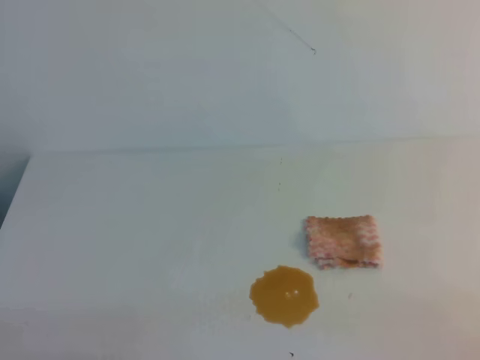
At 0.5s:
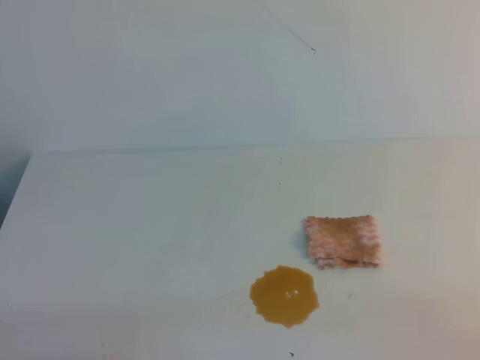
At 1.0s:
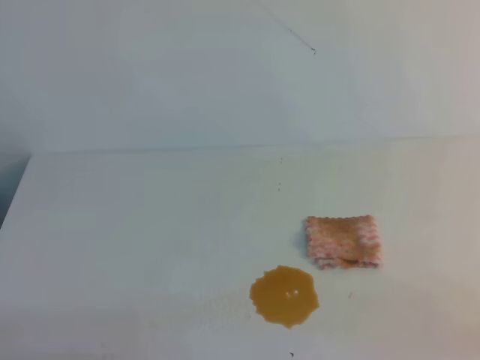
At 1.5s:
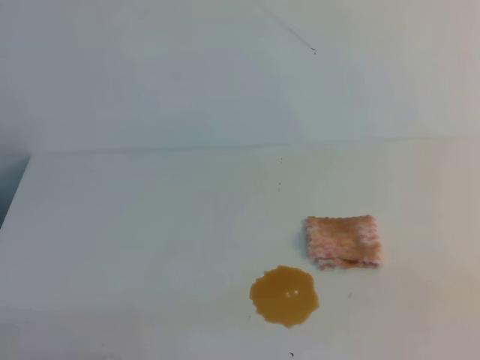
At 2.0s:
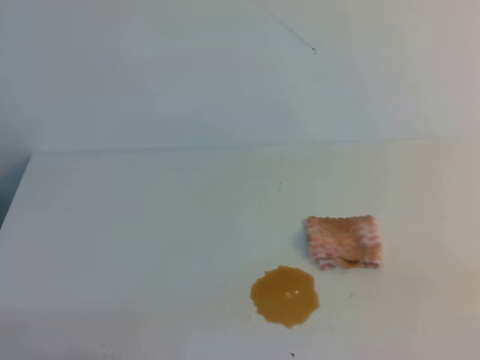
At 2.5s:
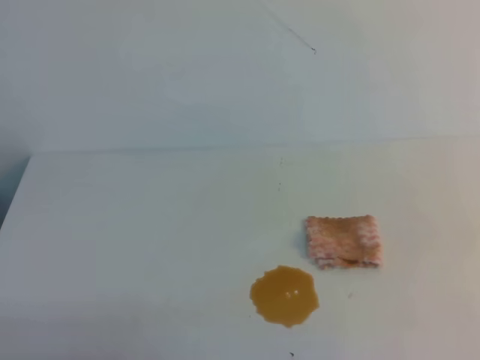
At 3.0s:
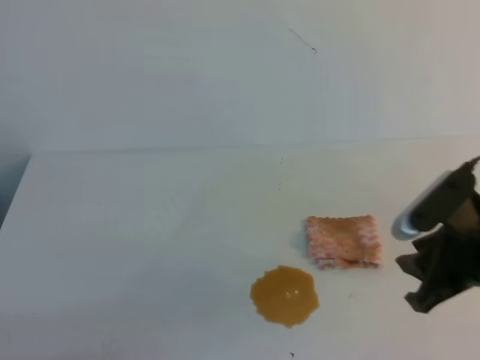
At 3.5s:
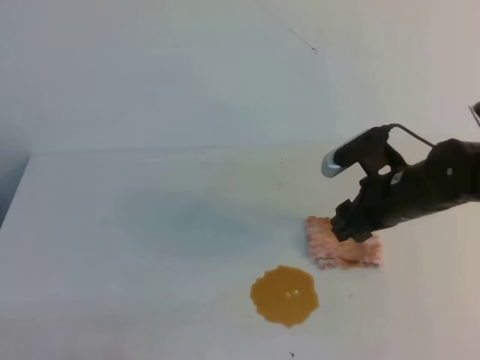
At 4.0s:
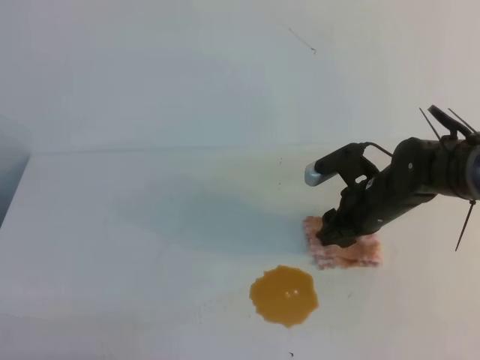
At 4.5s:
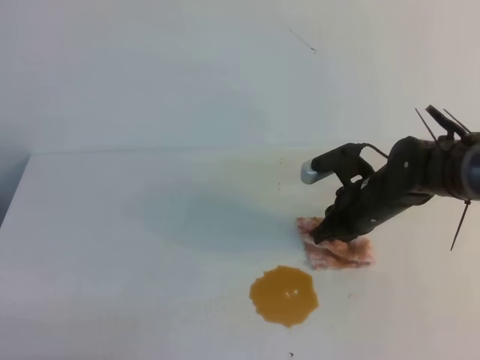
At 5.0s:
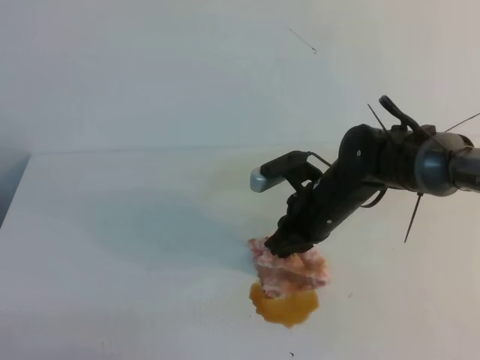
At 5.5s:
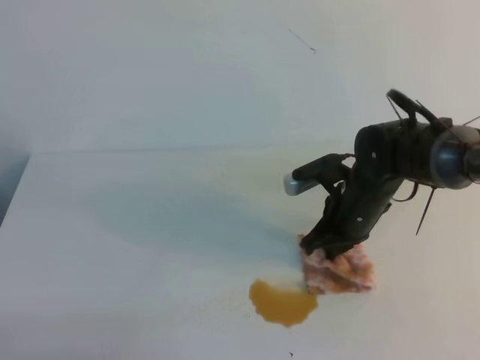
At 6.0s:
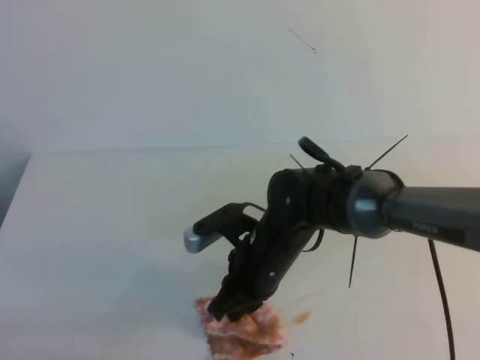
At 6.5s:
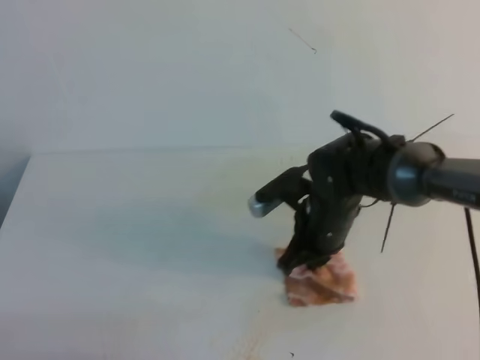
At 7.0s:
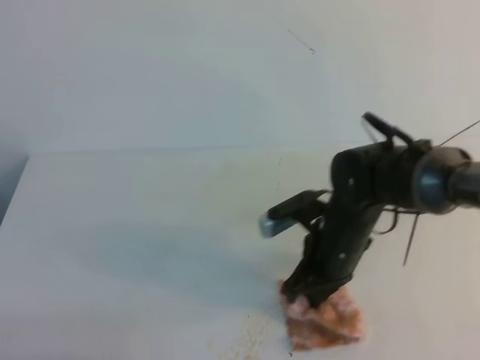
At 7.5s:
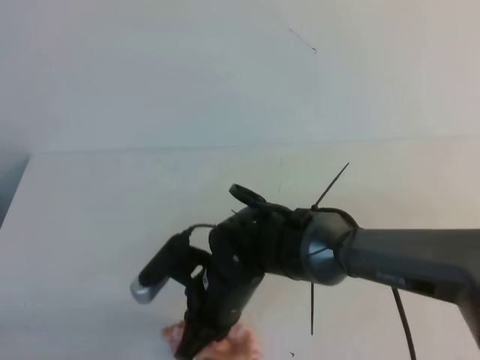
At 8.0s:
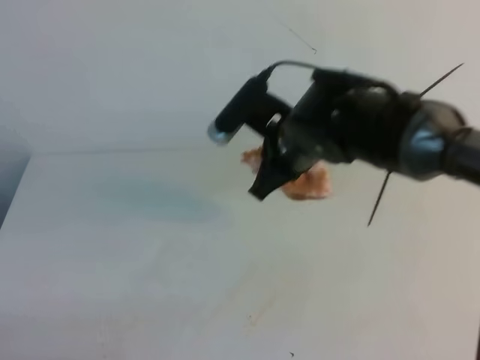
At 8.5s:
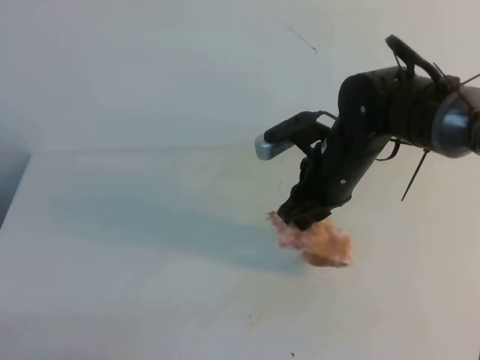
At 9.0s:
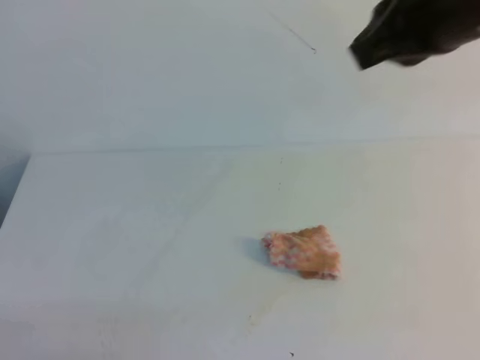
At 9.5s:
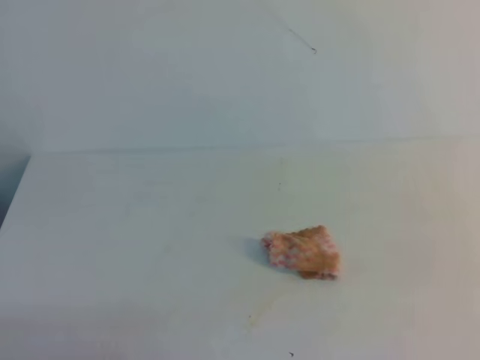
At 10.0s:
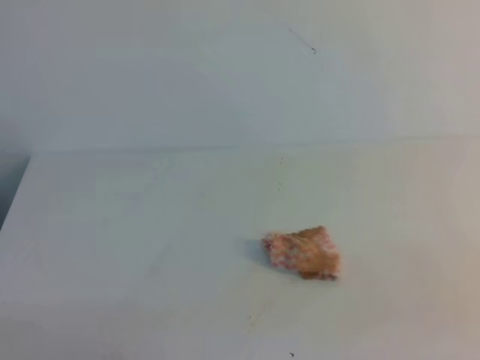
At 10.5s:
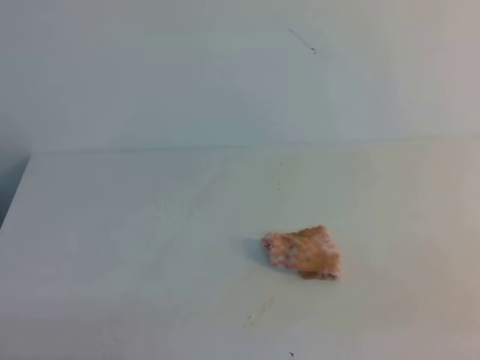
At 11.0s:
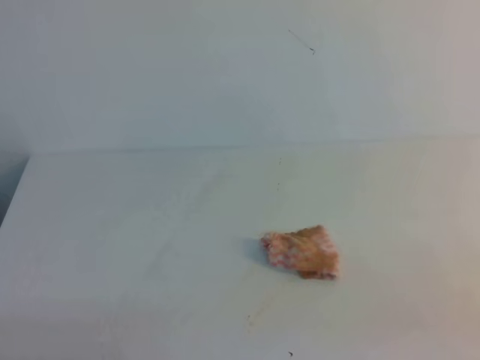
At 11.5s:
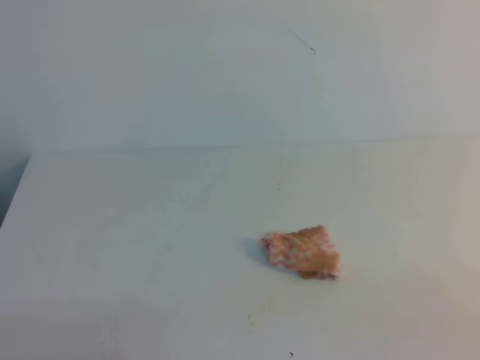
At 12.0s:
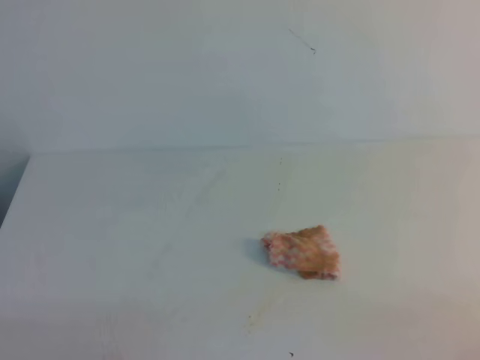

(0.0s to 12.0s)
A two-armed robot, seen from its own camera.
2.0s - 4.0s: The right gripper travels forward, to the left and downward by approximately 40 cm, and opens up.
4.0s - 6.0s: The right gripper goes roughly 15 cm to the left and backward, and closes its fingers.
6.0s - 8.0s: The right gripper moves left and right over approximately 10 cm, changing direction 2 times.
8.0s - 10.0s: The right gripper shifts some 40 cm backward and to the right.
